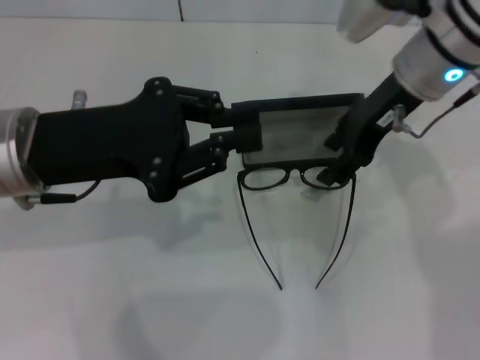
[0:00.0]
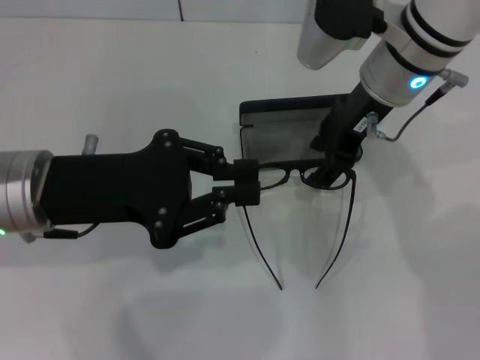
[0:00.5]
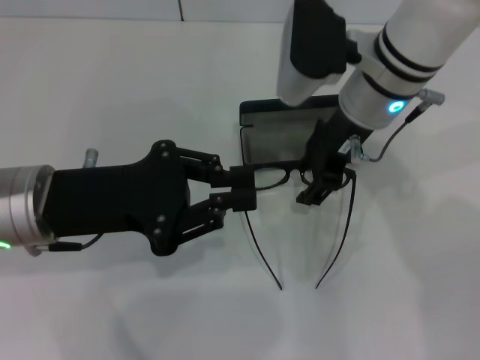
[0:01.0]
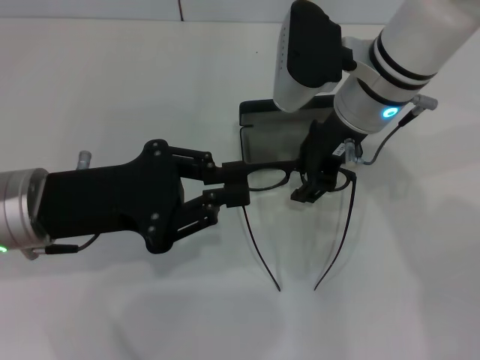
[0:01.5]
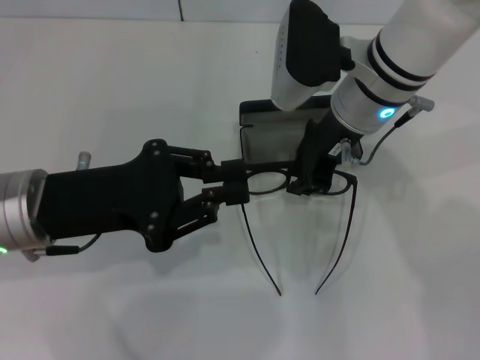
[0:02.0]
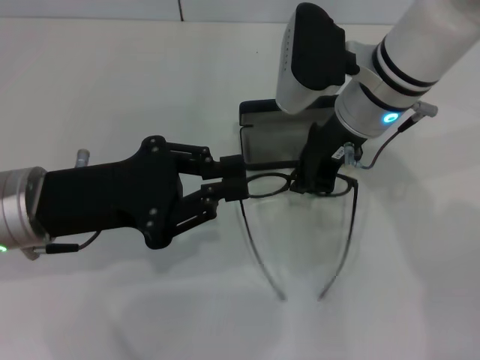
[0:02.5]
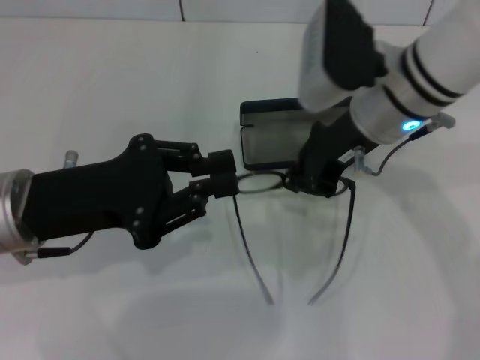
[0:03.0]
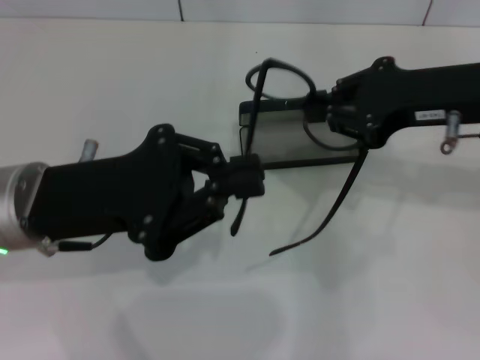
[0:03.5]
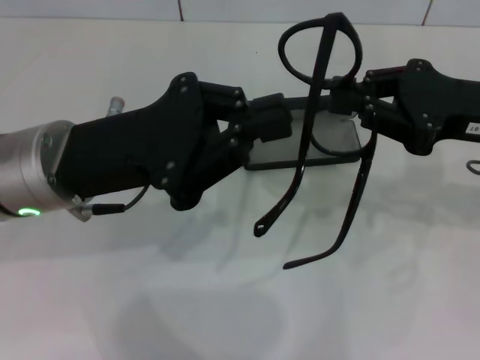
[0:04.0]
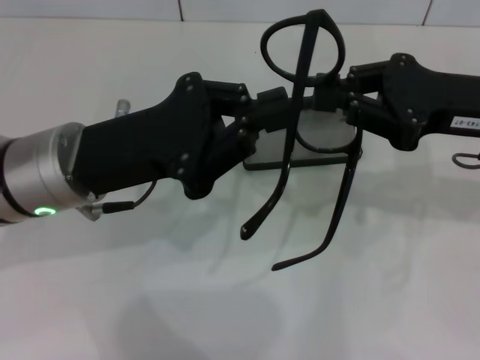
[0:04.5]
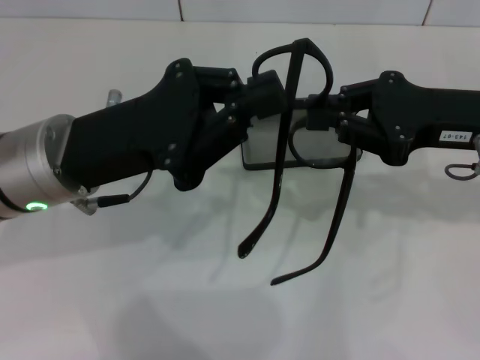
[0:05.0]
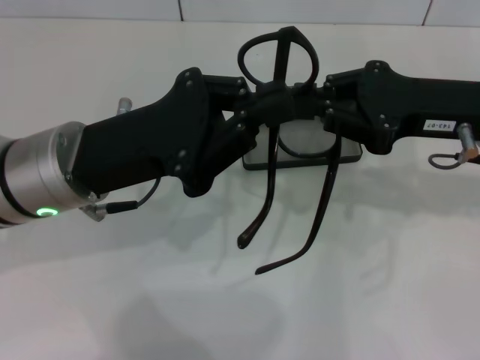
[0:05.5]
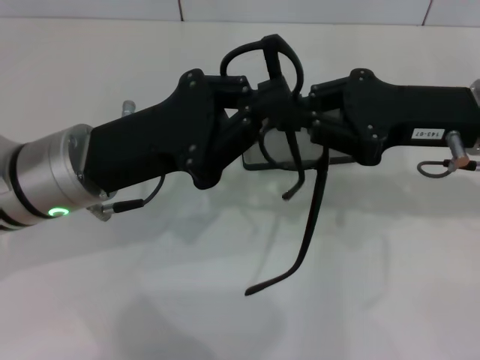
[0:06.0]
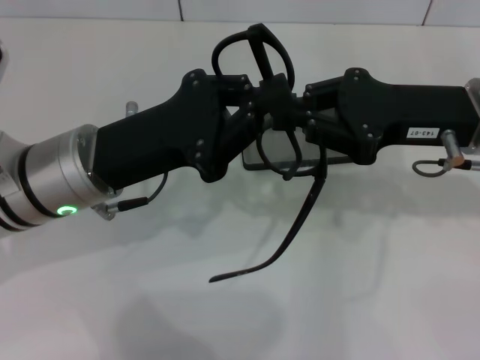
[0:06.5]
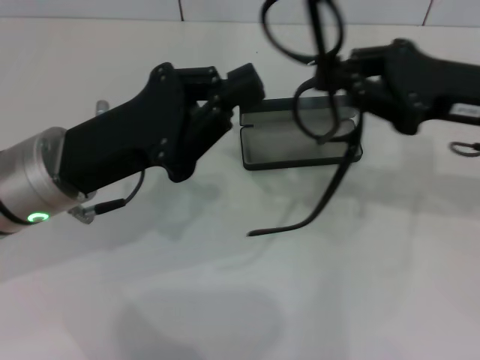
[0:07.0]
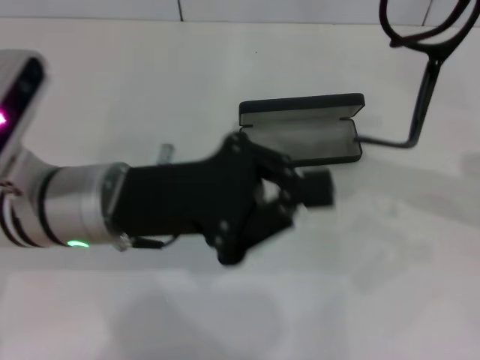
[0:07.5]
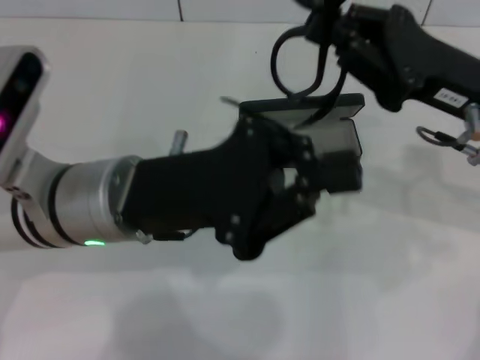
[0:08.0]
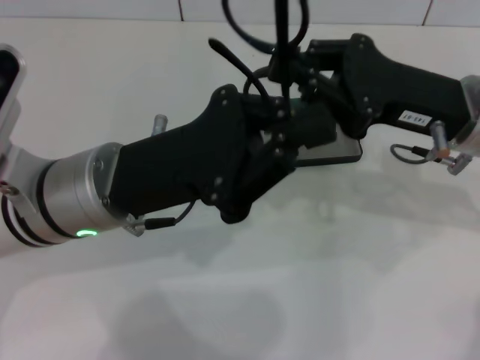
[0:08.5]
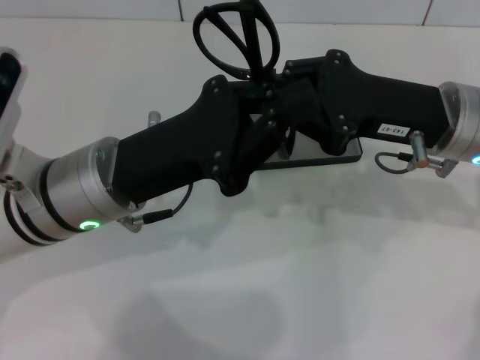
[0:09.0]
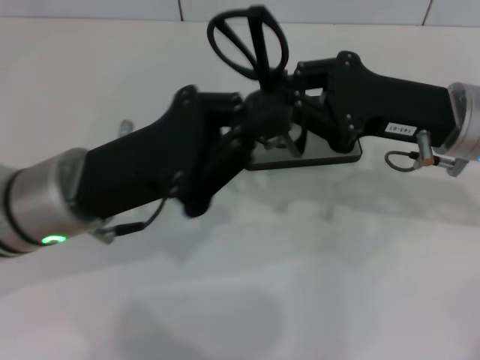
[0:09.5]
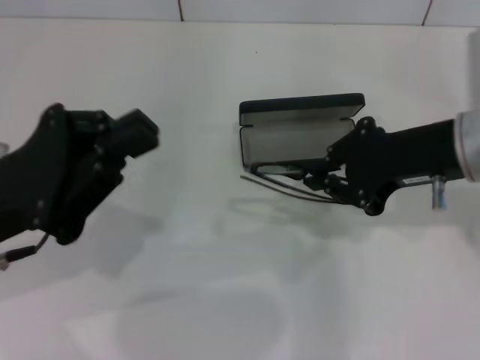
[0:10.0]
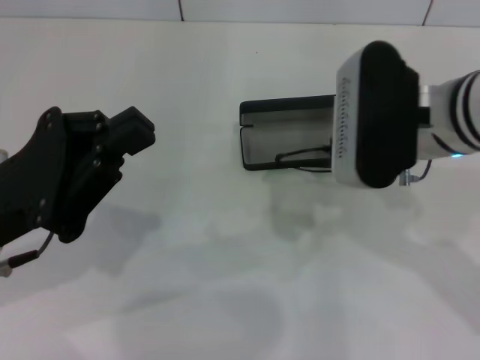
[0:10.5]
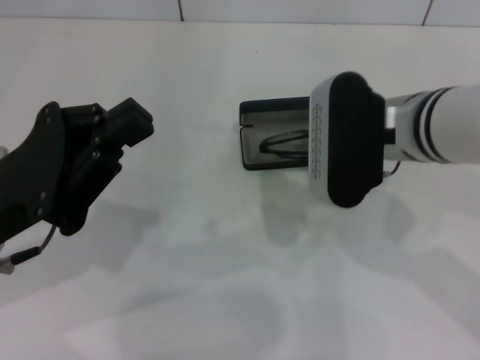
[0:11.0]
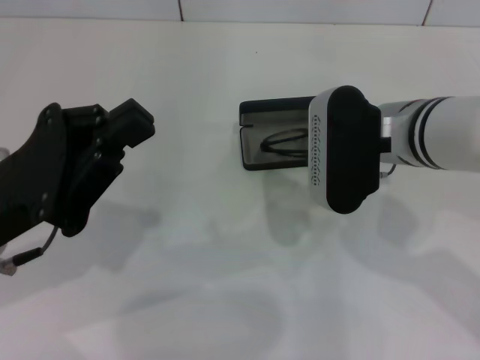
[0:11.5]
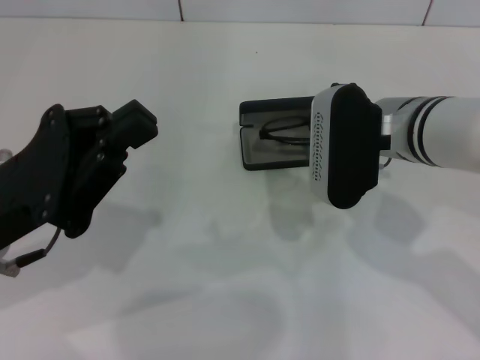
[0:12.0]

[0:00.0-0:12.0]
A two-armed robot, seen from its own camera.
Step, 0:00.0 to 0:02.0: Grab the eyeglass frame with your right hand.
Step, 0:02.5 to 0:09.0: Fold the frame with your left hand.
0:00.0 to 0:02.0: The right gripper goes some 5 cm to the left, and closes its fingers; the left gripper ends up some 5 cm from where it was.
0:02.0 to 0:04.0: The right gripper is displaced to the right and backward by roughly 20 cm, and closes.
0:04.0 to 0:06.0: The grippers make only small movements.
0:08.0 to 0:10.0: The left gripper goes some 10 cm to the left.
0:10.0 to 0:12.0: The right gripper travels to the left by approximately 5 cm.

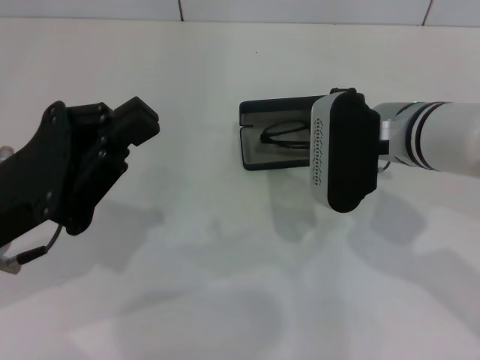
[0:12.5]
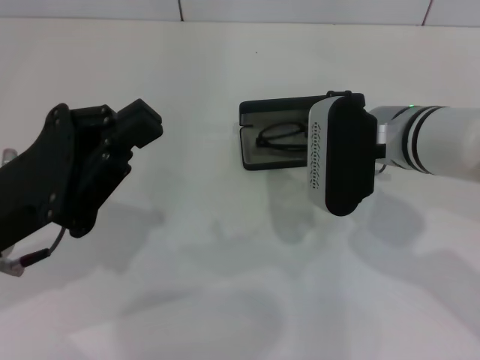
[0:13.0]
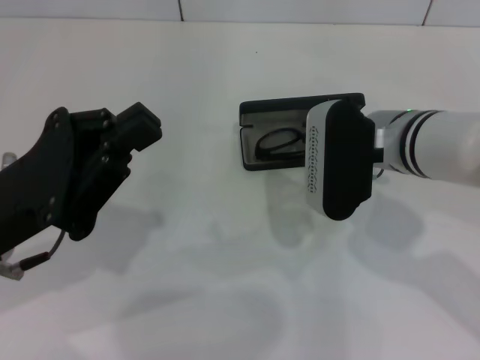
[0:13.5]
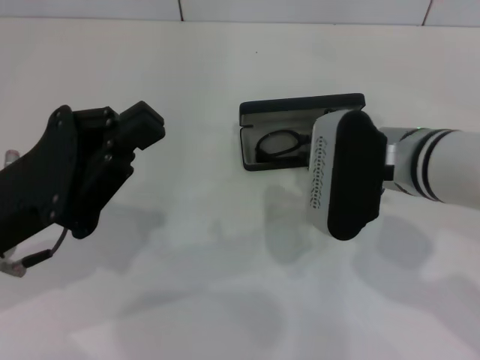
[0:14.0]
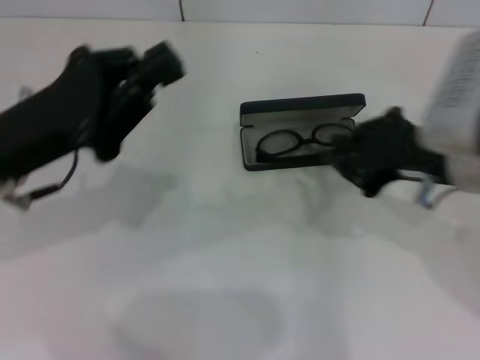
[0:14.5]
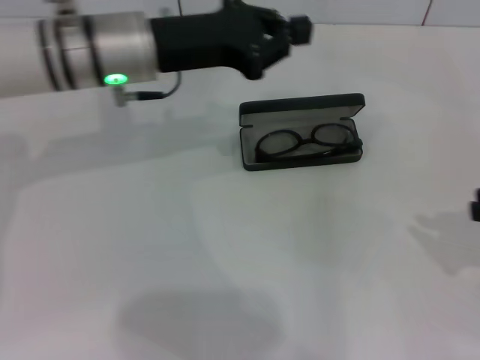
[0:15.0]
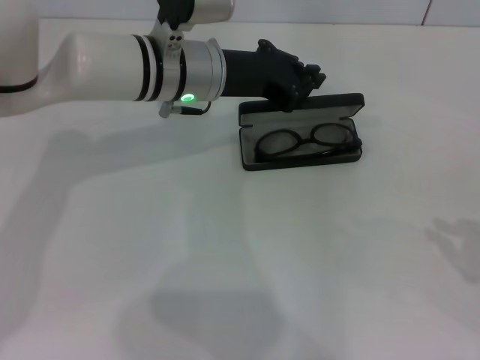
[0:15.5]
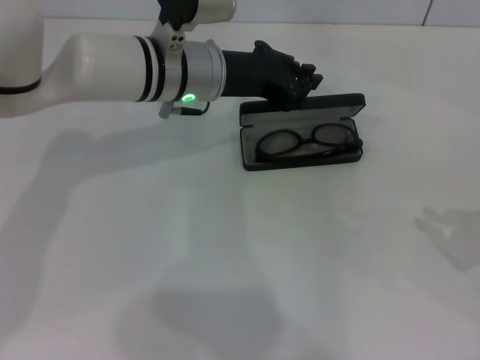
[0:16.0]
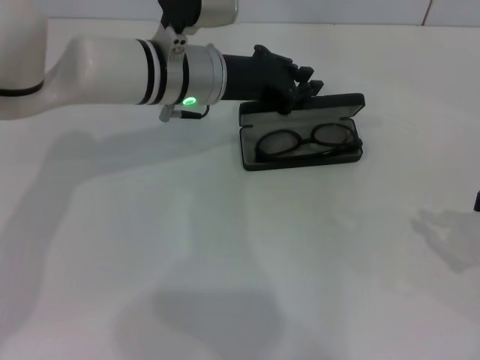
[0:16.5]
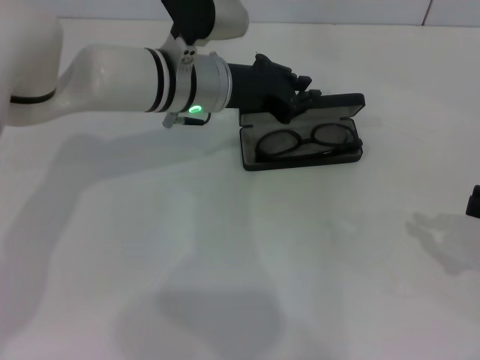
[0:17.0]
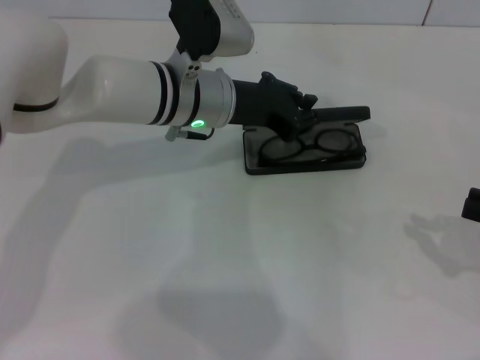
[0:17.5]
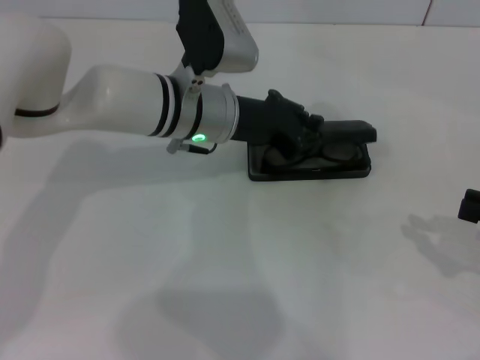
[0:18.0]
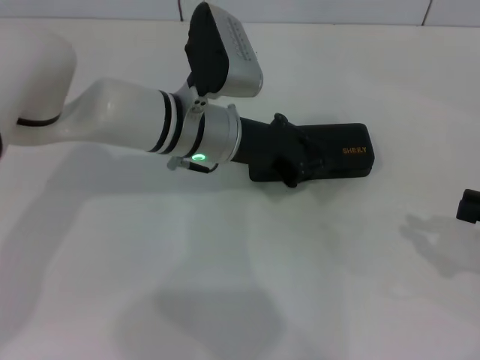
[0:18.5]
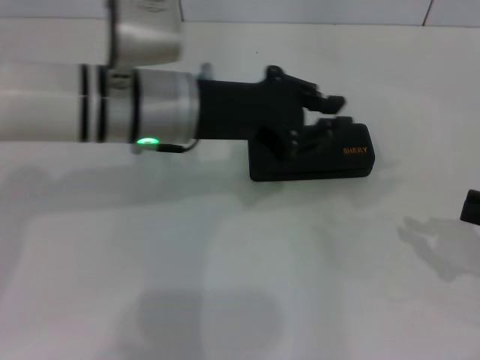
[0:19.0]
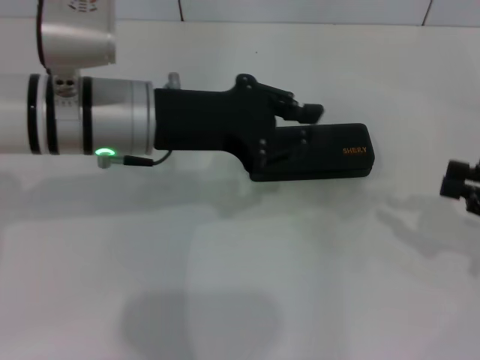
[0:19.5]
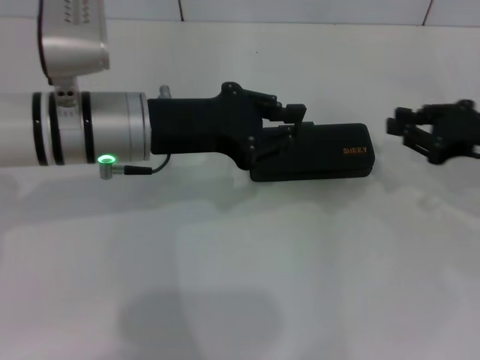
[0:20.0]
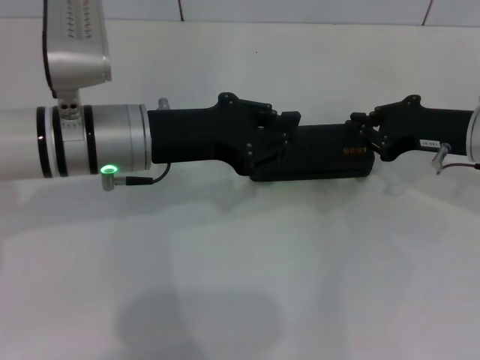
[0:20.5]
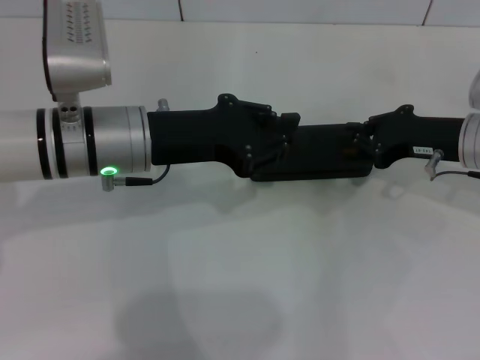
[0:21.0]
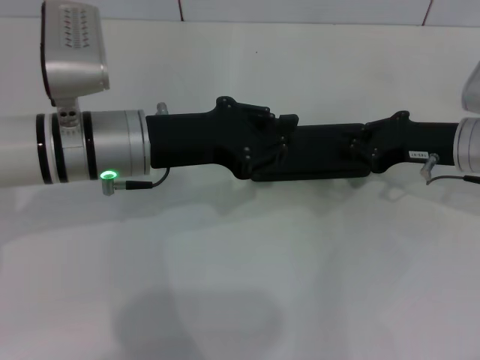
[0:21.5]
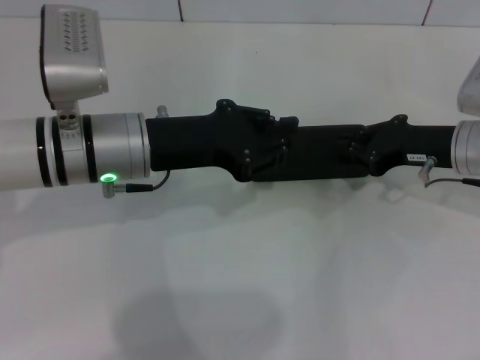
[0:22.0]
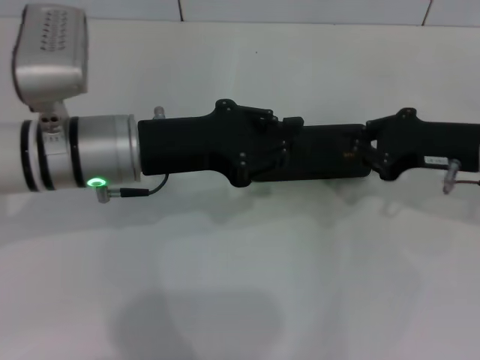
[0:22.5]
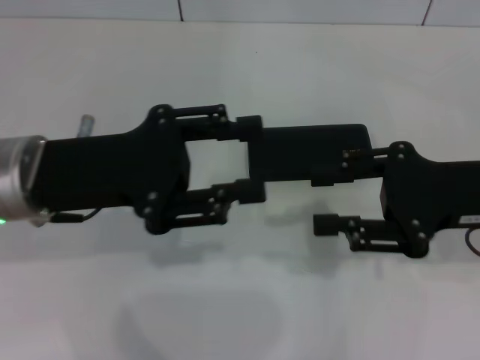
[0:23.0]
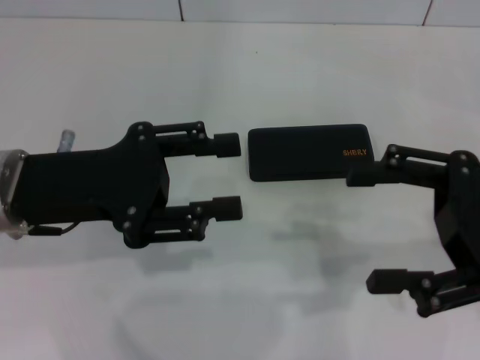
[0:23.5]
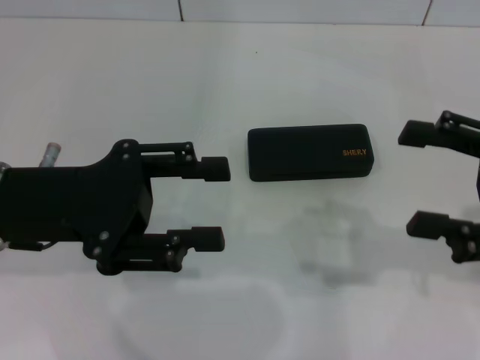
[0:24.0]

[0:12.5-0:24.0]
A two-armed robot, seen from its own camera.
Step, 0:14.0 to 0:18.5: Close the glasses case with your left hand.
0:12.5 to 0:14.5: The right gripper shifts approximately 10 cm backward, to the right and upward.
0:14.5 to 0:16.5: The right gripper moves to the right, roughly 20 cm. The left gripper moves to the right and forward, roughly 20 cm.
0:16.5 to 0:18.5: The grippers make only small movements.
0:18.5 to 0:20.0: The left gripper goes about 5 cm to the left, while the right gripper shifts roughly 15 cm forward and to the left.
0:20.0 to 0:22.0: The right gripper heads to the left, covering some 5 cm.
0:22.0 to 0:24.0: The left gripper travels to the left and backward by roughly 10 cm, and opens, while the right gripper is displaced backward, upward and to the right by about 15 cm, and opens its fingers.
